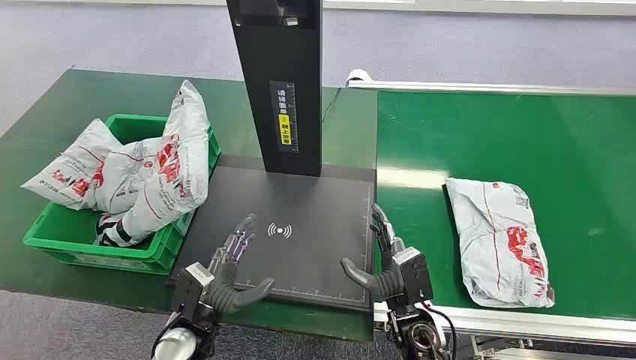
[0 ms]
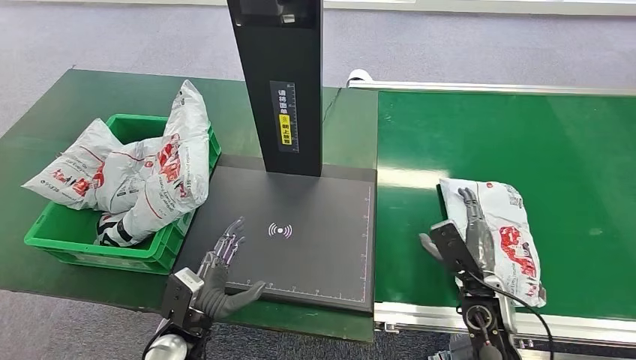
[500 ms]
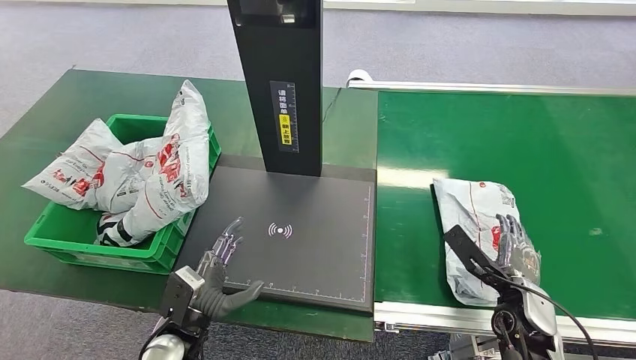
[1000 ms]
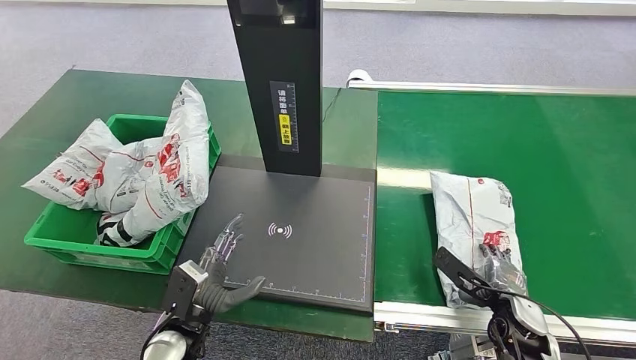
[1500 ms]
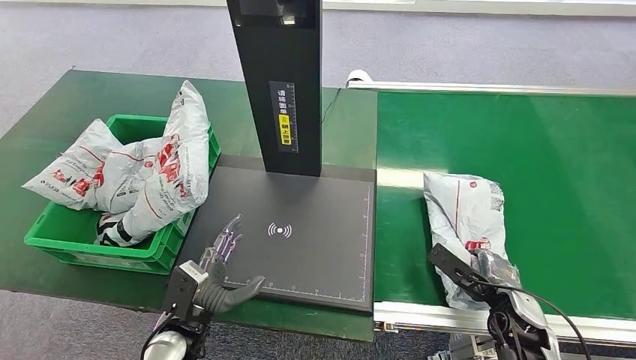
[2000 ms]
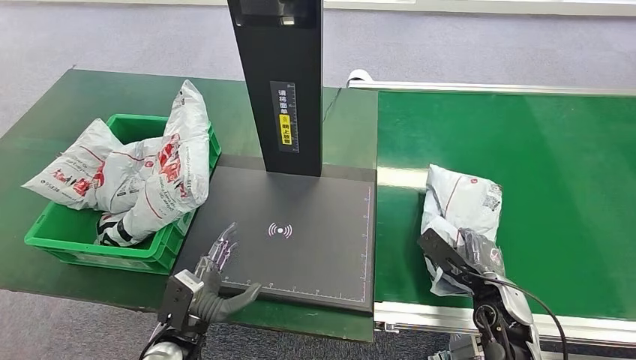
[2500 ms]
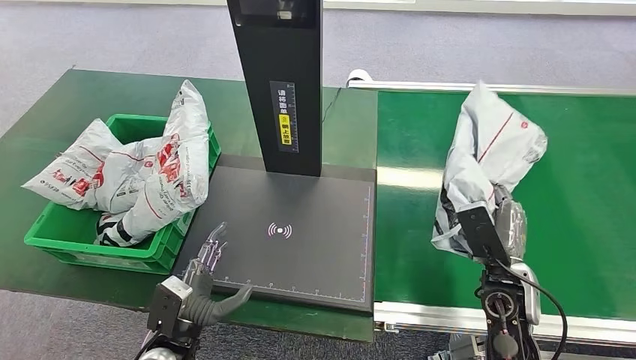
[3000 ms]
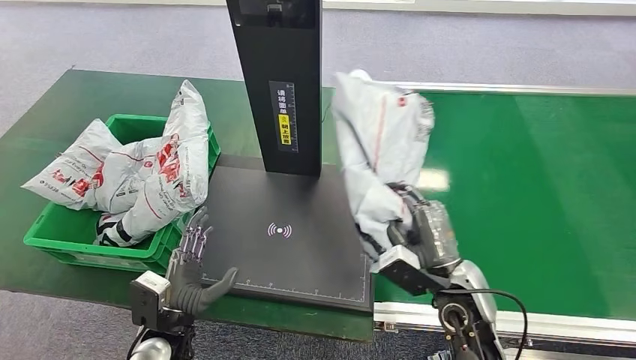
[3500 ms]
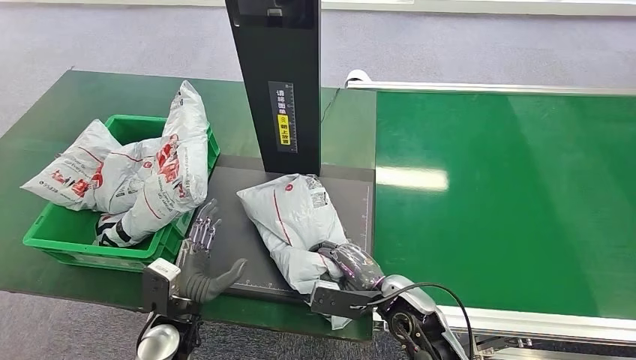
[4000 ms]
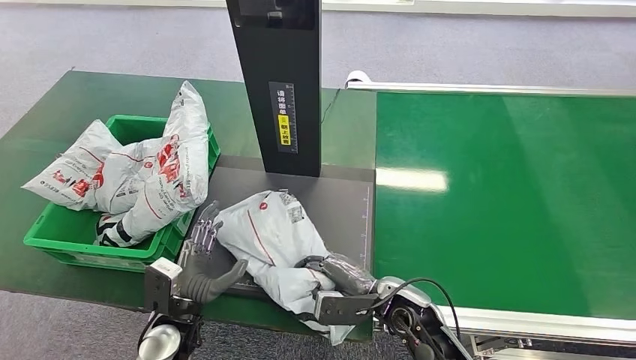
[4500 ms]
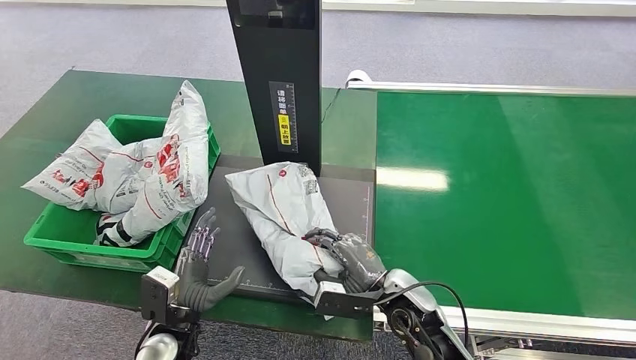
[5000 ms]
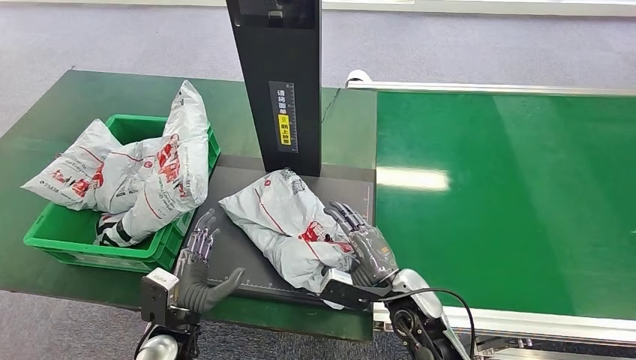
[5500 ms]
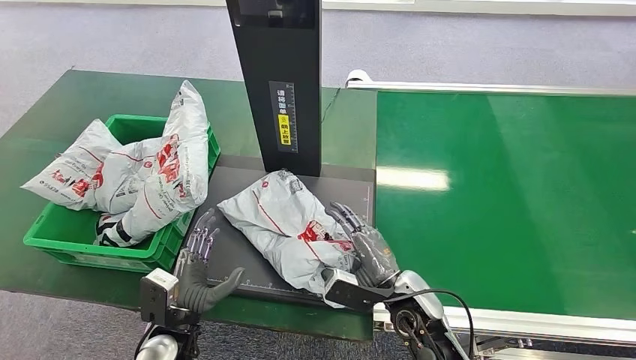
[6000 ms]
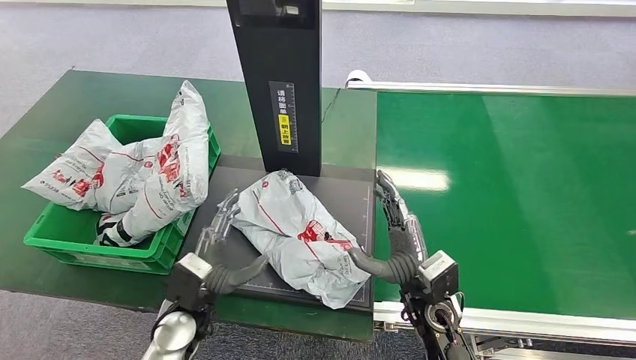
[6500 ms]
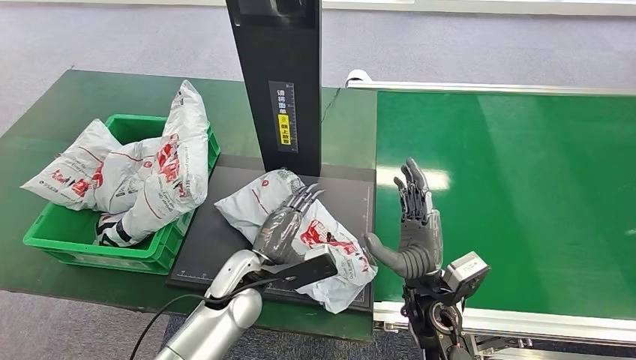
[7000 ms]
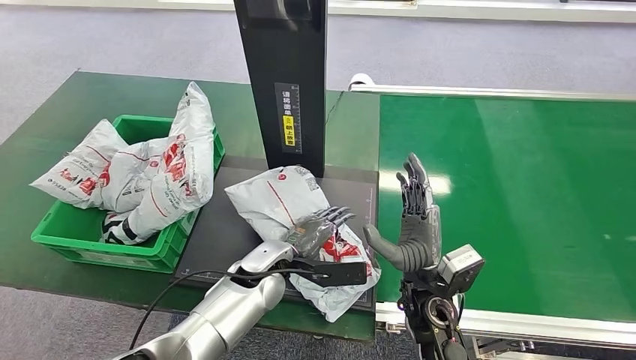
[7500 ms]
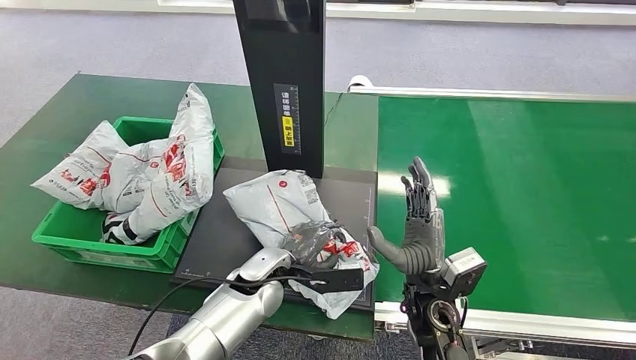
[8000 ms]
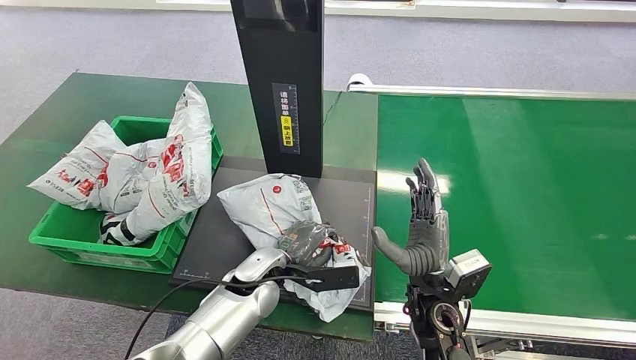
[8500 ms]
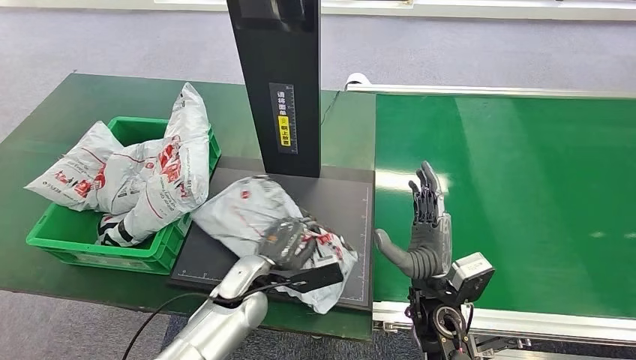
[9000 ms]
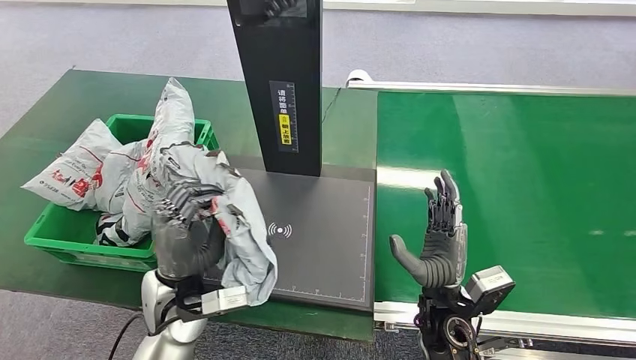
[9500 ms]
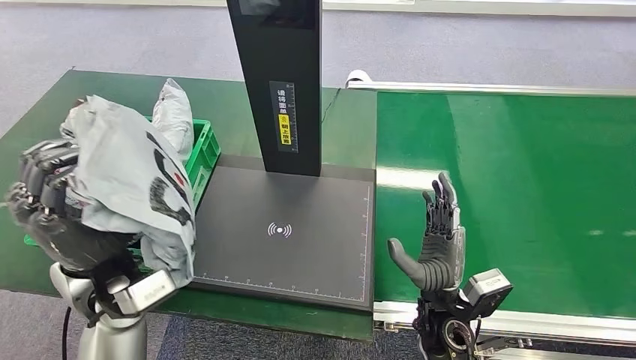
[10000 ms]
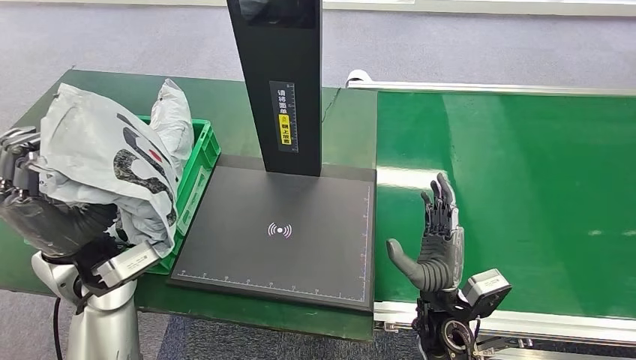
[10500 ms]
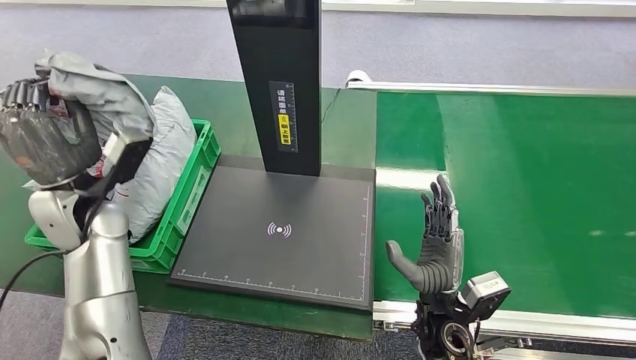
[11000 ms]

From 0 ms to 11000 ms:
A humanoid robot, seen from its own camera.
Step, from 0 ms to 3000 ms: Pick up the package from the conveyor belt.
Step, from 3500 ms to 6500 ms: Place the package onto the inbound machine.
Step, from 7000 ms to 9500 ms: Pick up the package from the inbound machine.
From 2000 ms to 3500 ms: The right hand heads to the left and upward, covering roughly 15 cm.
From 3500 ms to 5500 ms: The right hand shifts roughly 5 cm downward.

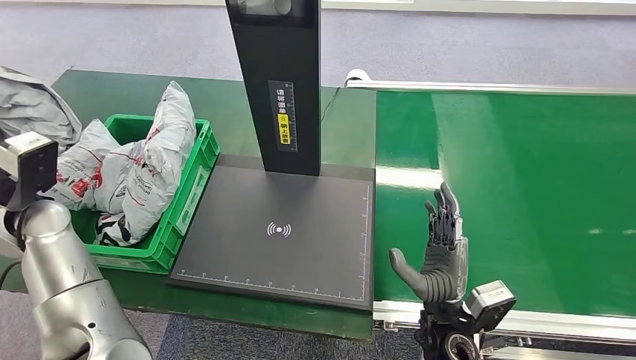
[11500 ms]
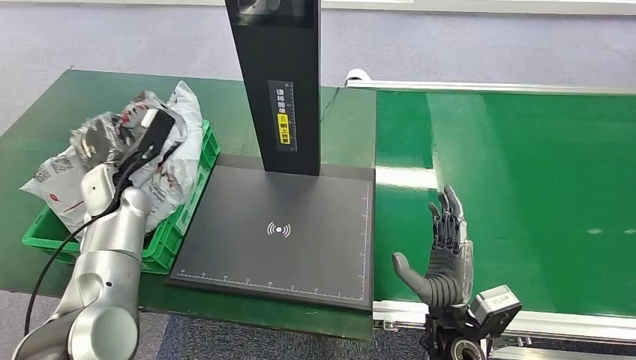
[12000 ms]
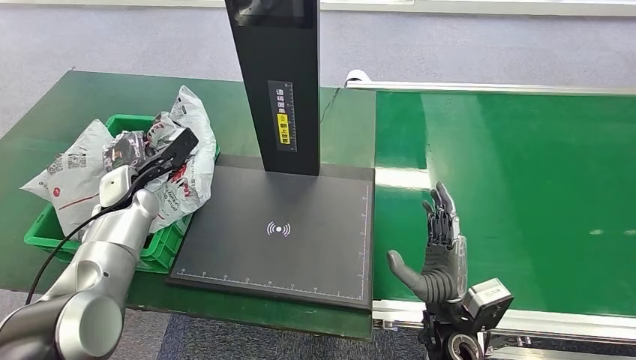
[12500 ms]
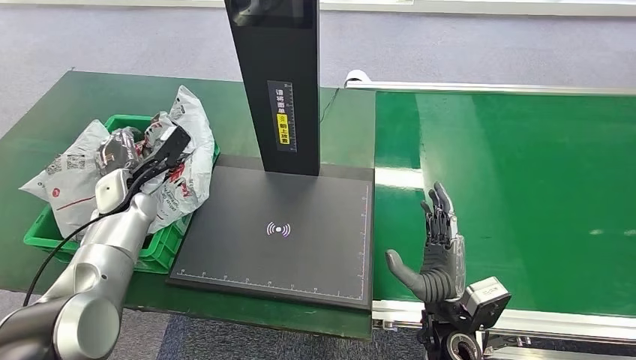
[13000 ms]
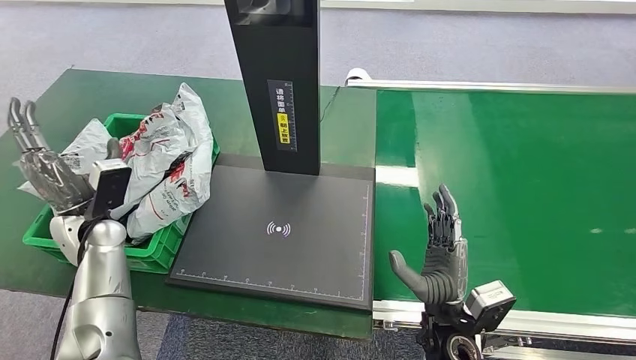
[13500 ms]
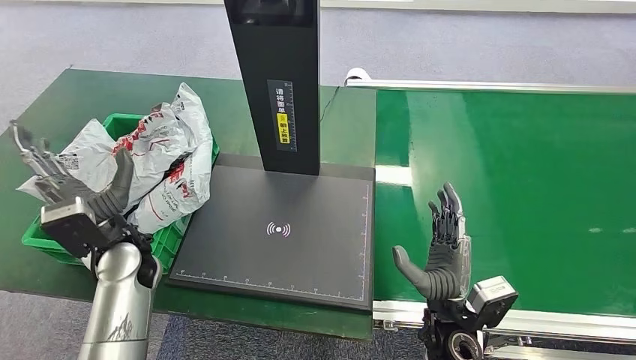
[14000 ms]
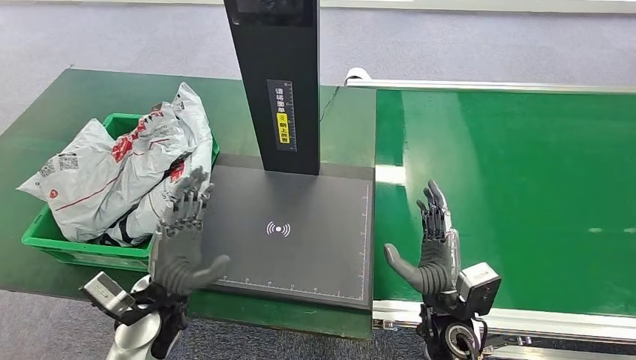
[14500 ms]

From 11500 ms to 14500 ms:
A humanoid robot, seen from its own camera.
Step, from 11500 ms to 14500 ms: Place the package into the parcel locker.
From 11500 ms to 13000 ms: The left hand travels downward and forward by about 15 cm.
From 13000 ms to 14500 ms: The left hand moves backward and to the right, about 20 cm.
